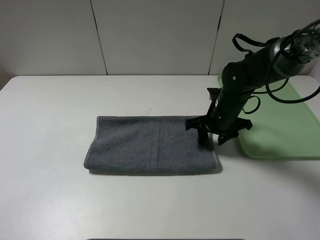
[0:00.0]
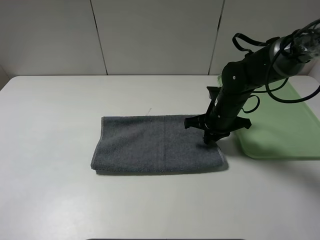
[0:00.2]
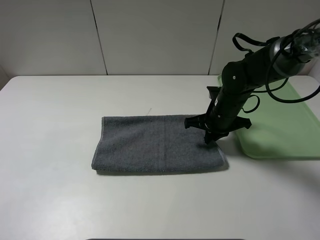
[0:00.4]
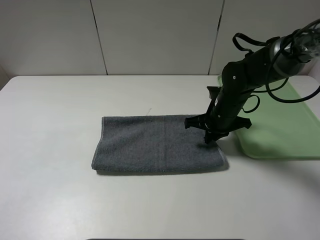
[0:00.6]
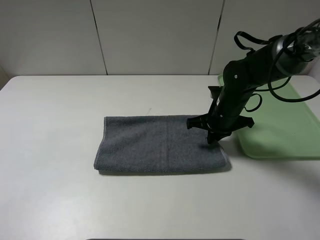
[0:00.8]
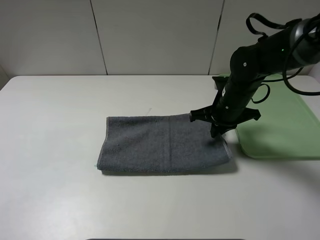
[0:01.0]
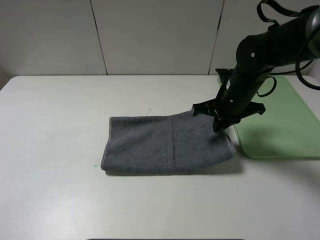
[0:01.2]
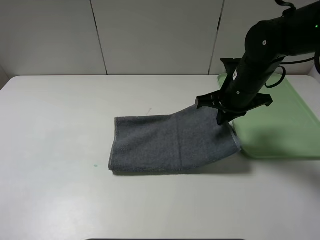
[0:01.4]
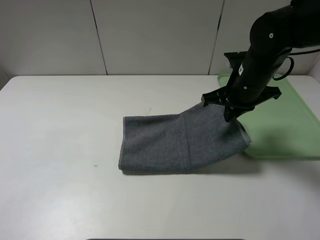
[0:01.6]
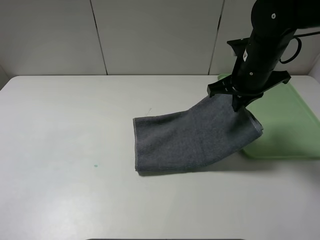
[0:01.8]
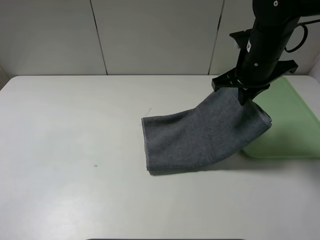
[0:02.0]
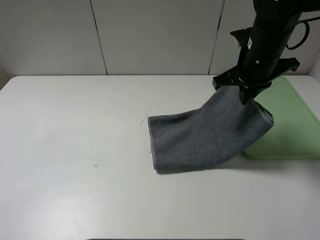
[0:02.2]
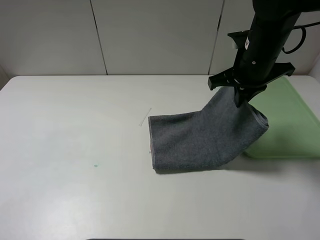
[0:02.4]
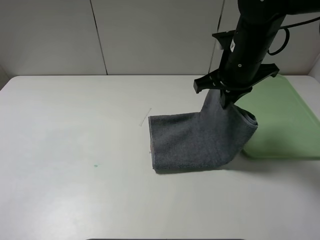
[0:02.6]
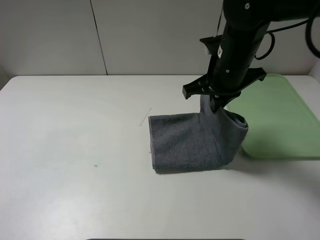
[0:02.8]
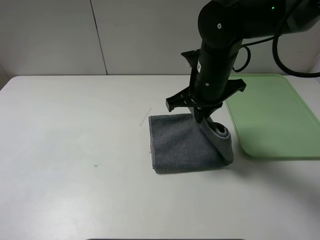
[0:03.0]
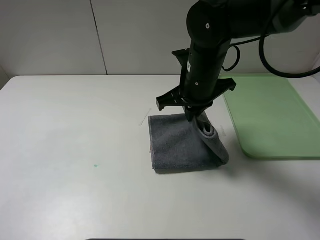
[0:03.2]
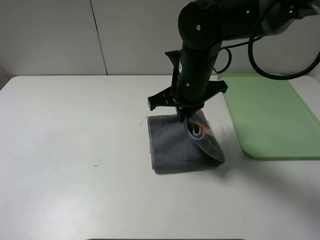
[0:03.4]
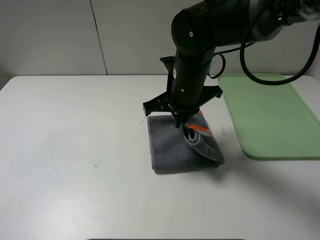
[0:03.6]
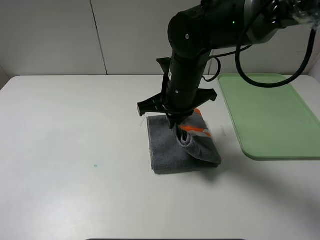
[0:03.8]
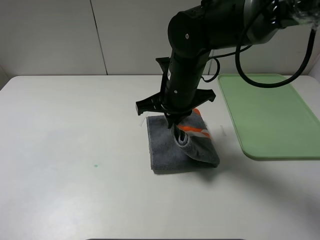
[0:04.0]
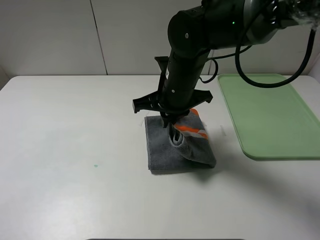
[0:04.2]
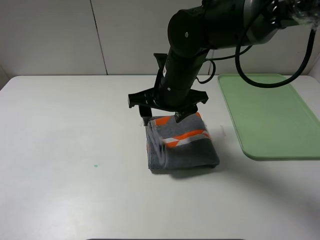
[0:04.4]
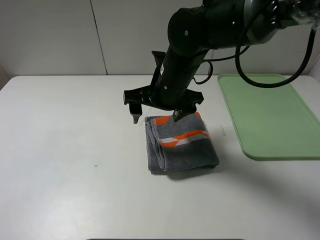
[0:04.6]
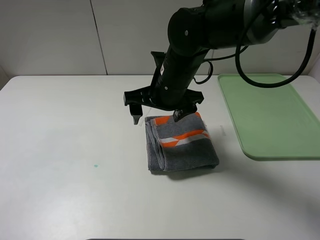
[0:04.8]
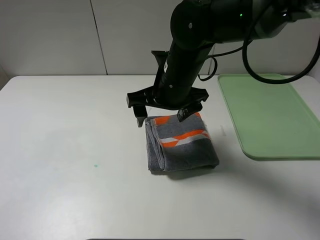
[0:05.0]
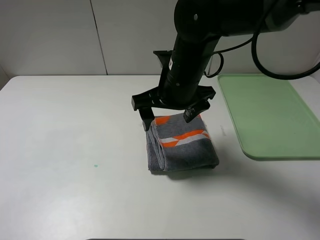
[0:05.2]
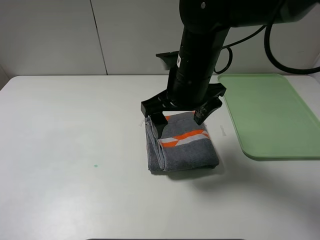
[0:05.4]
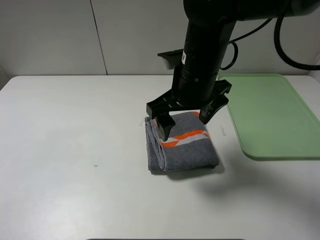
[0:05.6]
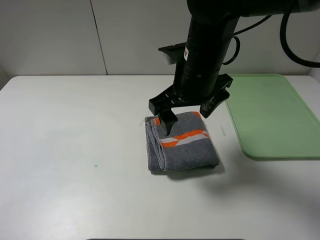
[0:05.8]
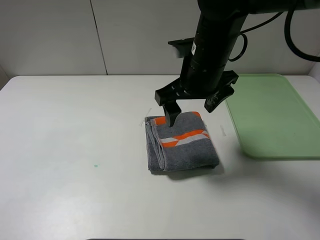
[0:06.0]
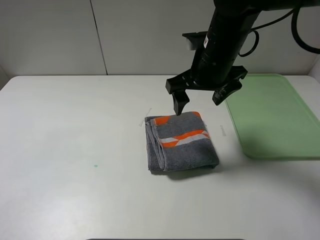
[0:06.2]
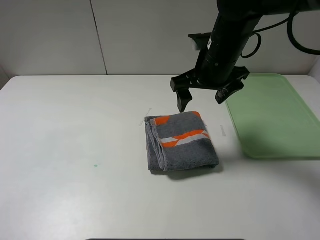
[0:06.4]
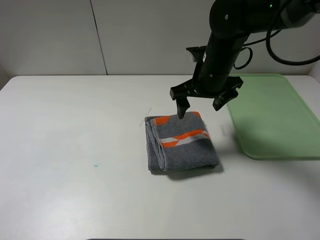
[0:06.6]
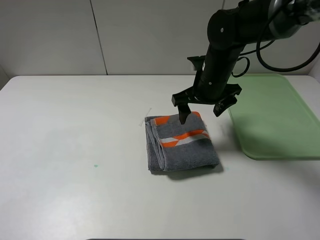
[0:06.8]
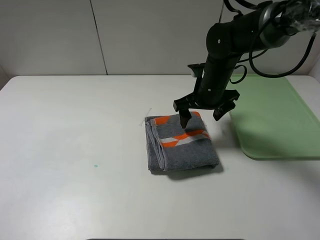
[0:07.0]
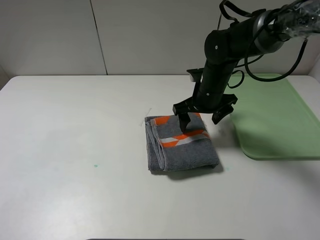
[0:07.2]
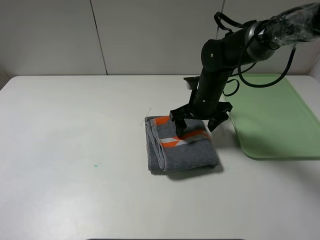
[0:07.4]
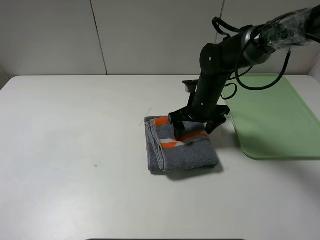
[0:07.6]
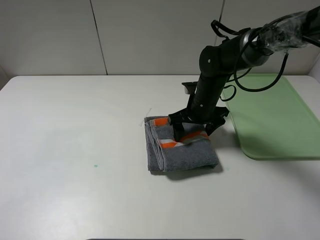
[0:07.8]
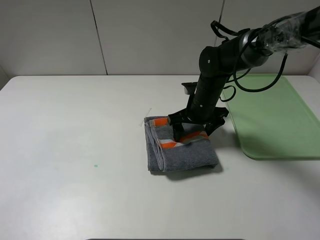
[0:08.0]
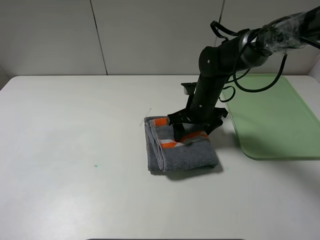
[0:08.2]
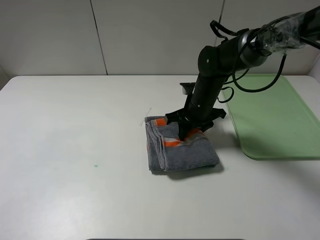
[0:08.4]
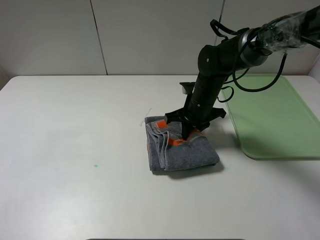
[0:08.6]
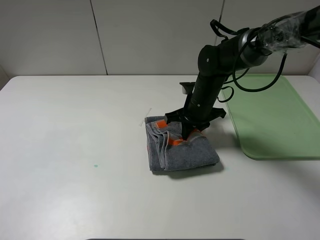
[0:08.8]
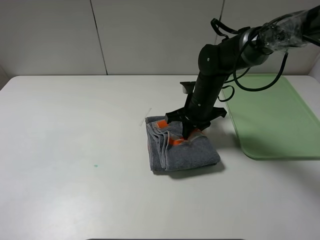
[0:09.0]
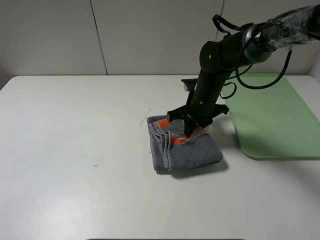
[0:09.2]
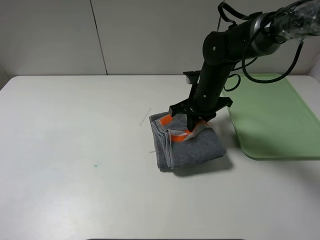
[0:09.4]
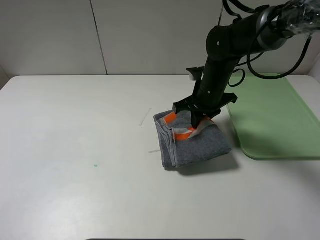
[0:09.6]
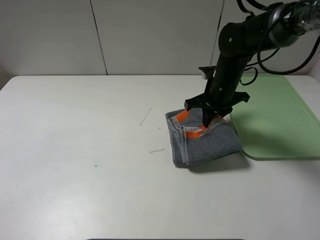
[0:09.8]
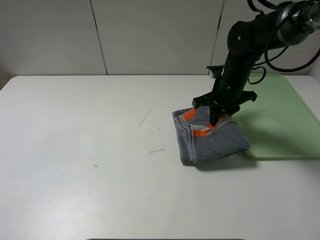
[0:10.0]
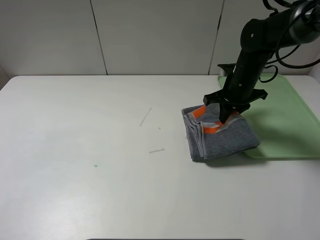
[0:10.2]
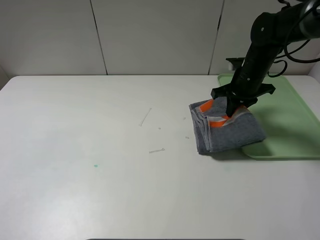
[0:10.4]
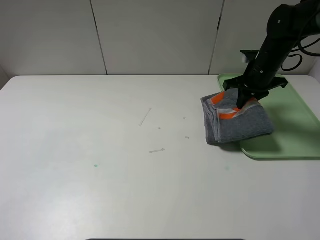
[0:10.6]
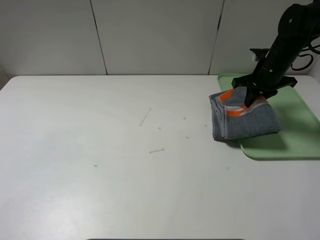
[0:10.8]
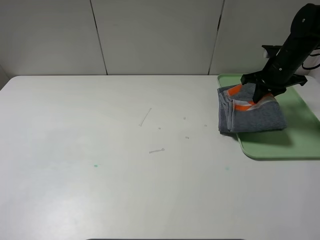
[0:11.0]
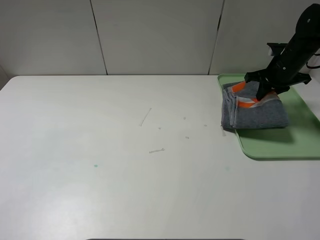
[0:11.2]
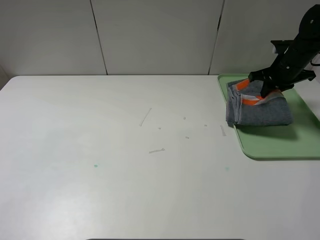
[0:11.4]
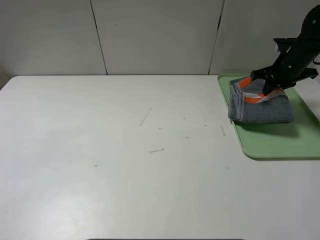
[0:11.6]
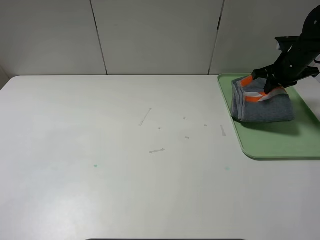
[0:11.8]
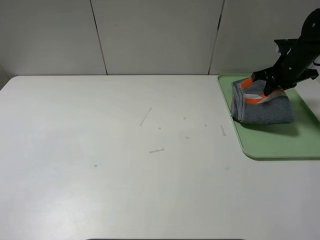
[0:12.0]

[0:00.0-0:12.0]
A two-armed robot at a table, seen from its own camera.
Step, 0:00.0 to 0:04.4: Fold the grey towel from right to left with right gripper.
0:00.0 to 0:01.6: The right gripper heads upward, covering some 10 cm, and closes up.
0:01.6 to 0:03.0: The right gripper goes approximately 10 cm to the left.
0:03.0 to 0:04.4: The right gripper travels to the left by roughly 5 cm, and opens its fingers.
0:04.4 to 0:06.0: The right gripper changes place by approximately 5 cm.
0:06.0 to 0:07.6: The right gripper is displaced downward and forward by about 15 cm.
0:07.6 to 0:09.0: The right gripper closes up.
0:09.0 to 0:10.4: The right gripper travels to the right and upward by approximately 15 cm.
0:10.4 to 0:12.0: The right gripper moves to the right, approximately 10 cm.

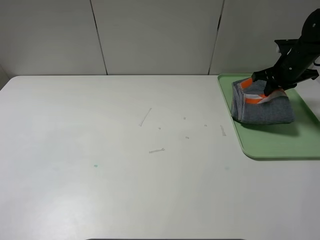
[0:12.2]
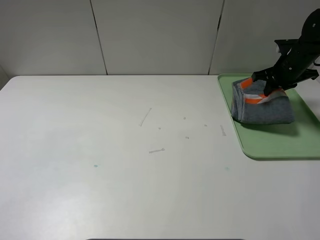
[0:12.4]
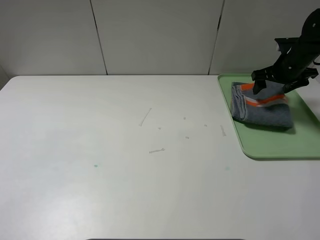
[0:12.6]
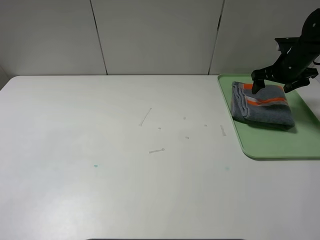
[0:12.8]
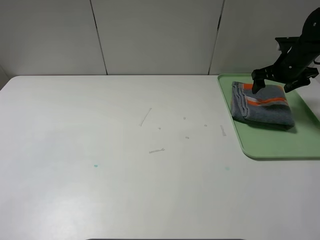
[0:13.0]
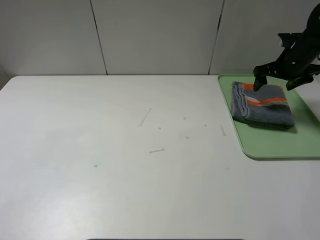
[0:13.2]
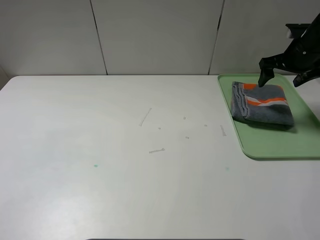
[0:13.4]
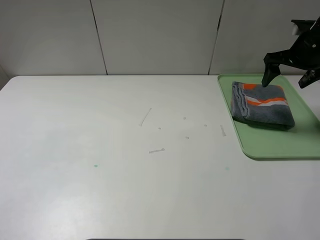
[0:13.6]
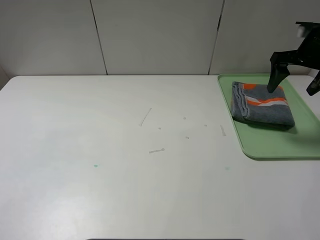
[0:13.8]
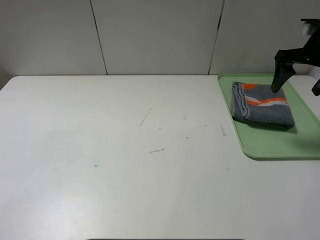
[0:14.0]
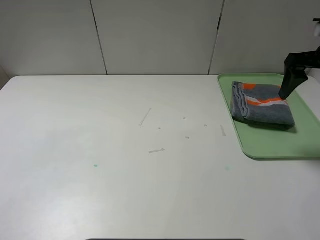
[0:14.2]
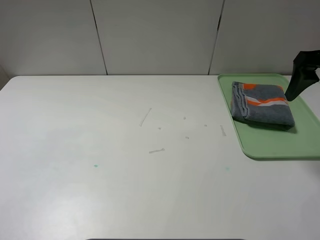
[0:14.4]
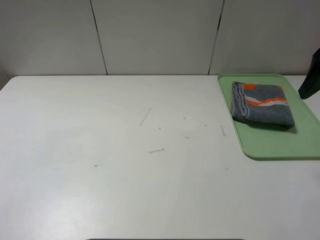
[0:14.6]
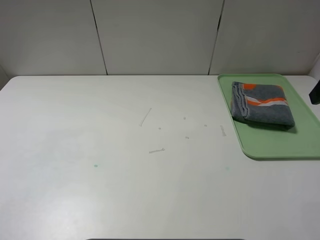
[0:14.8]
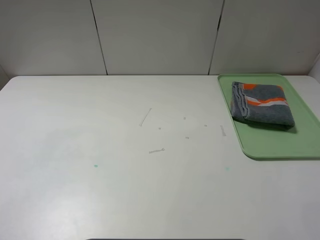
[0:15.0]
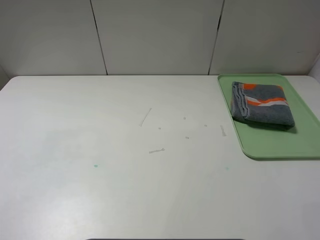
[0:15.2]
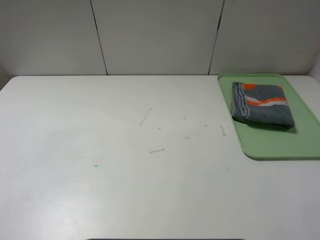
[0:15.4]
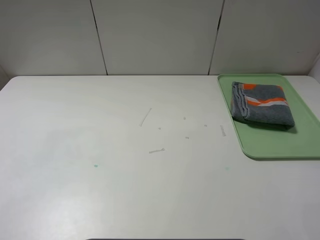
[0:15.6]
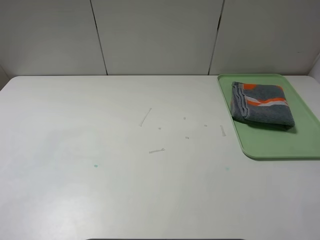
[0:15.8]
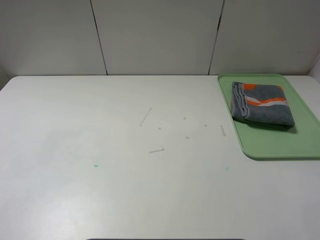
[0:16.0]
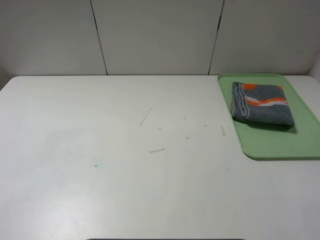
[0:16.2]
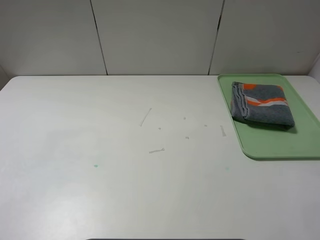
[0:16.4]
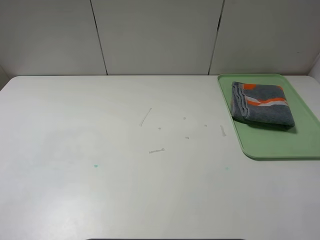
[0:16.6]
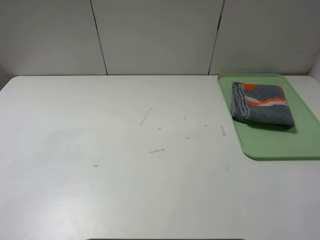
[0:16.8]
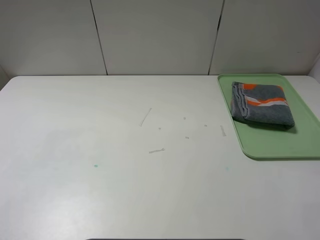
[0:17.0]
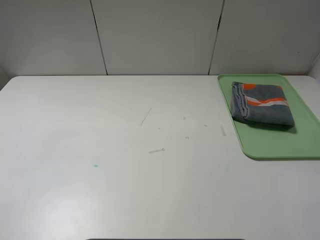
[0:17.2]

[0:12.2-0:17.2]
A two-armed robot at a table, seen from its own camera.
0:12.2 to 0:13.8: The right gripper moves upward and backward, about 10 cm, and opens.
0:13.8 to 0:15.6: The right gripper moves backward, about 35 cm.
